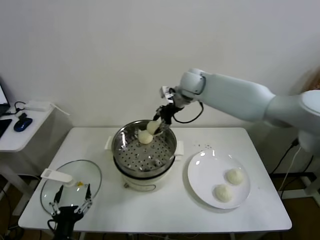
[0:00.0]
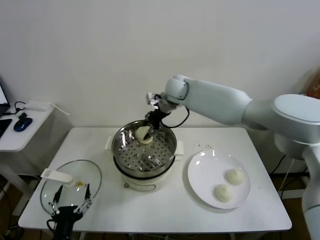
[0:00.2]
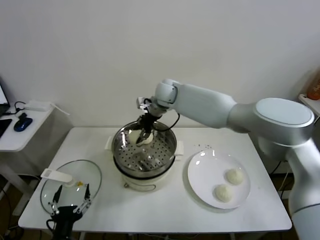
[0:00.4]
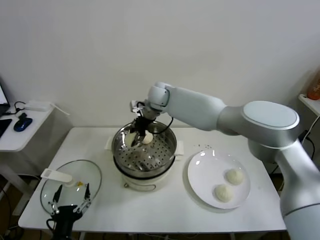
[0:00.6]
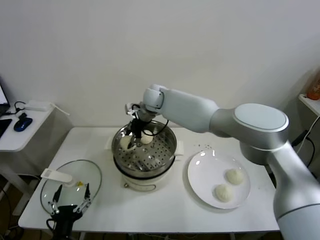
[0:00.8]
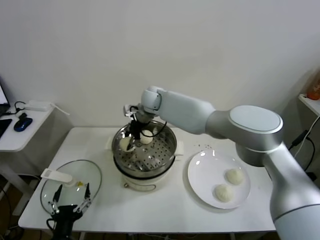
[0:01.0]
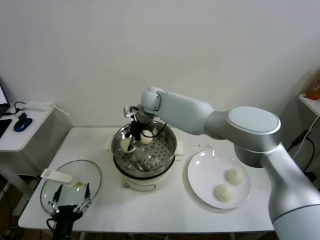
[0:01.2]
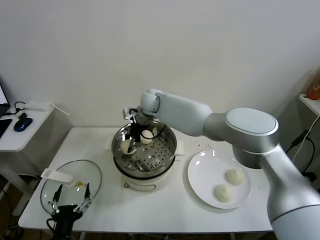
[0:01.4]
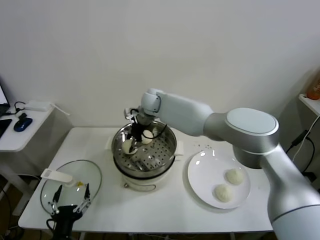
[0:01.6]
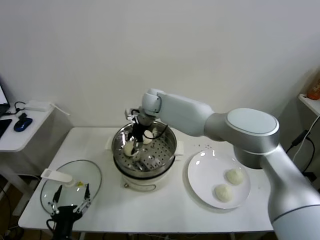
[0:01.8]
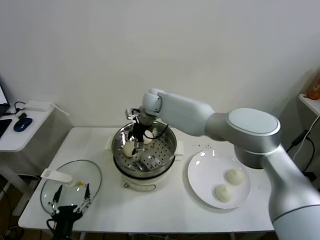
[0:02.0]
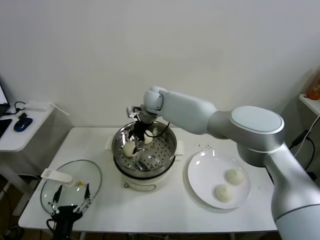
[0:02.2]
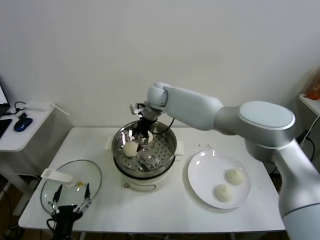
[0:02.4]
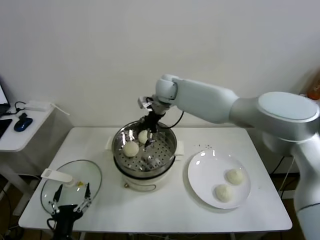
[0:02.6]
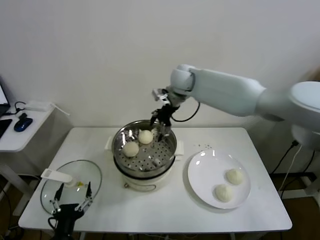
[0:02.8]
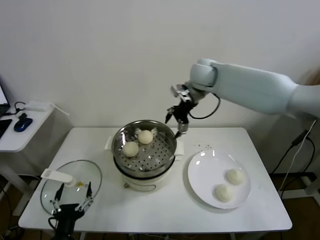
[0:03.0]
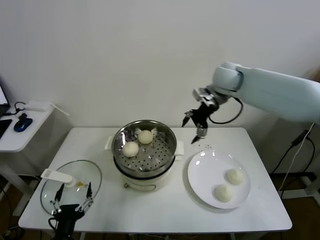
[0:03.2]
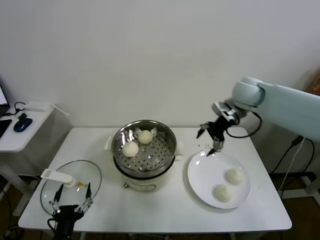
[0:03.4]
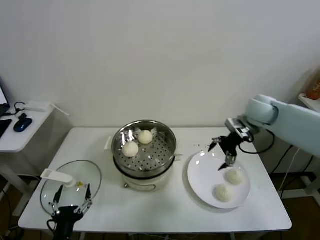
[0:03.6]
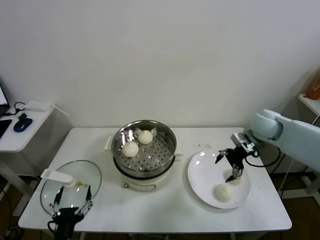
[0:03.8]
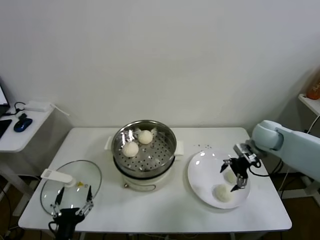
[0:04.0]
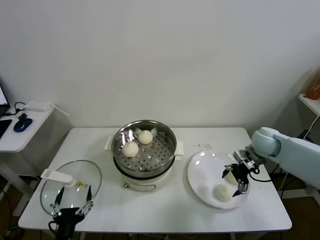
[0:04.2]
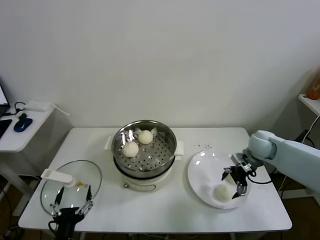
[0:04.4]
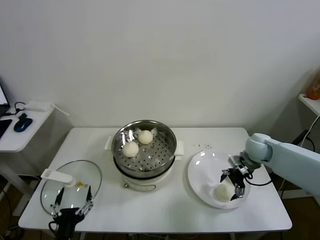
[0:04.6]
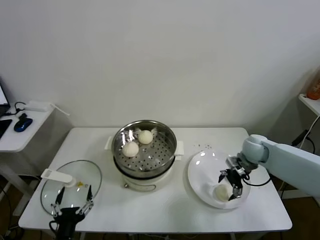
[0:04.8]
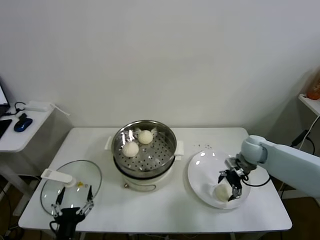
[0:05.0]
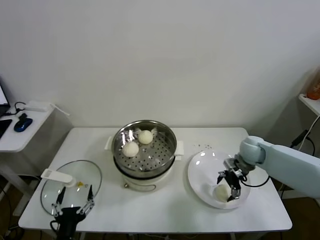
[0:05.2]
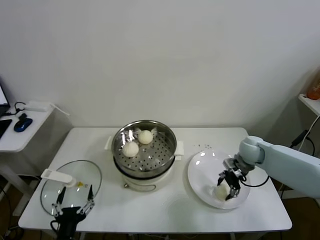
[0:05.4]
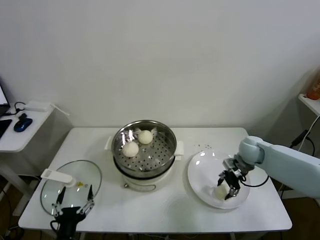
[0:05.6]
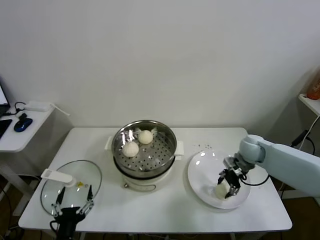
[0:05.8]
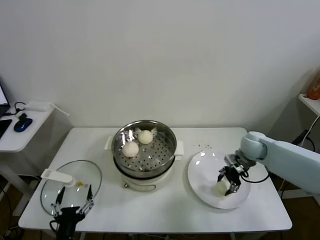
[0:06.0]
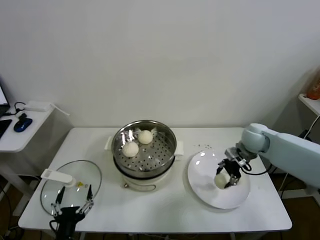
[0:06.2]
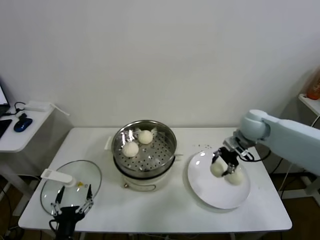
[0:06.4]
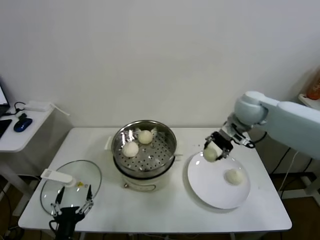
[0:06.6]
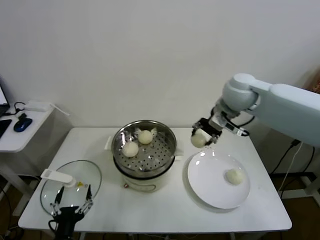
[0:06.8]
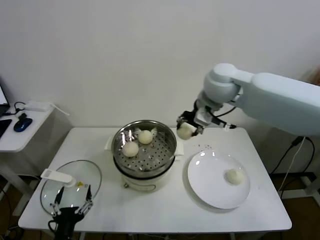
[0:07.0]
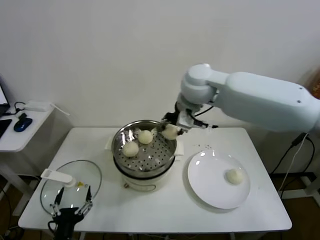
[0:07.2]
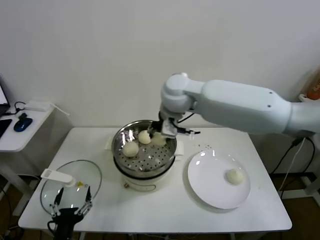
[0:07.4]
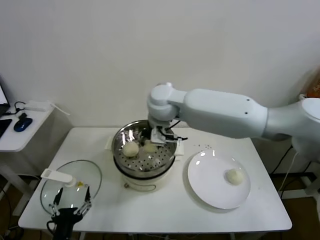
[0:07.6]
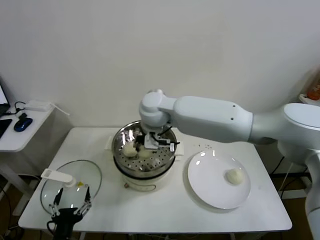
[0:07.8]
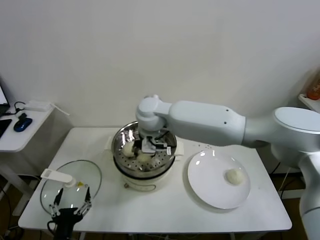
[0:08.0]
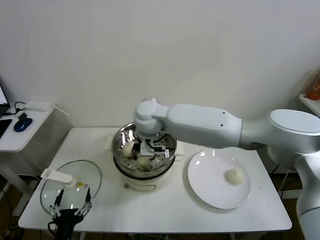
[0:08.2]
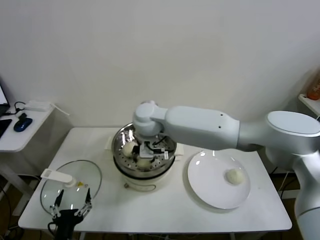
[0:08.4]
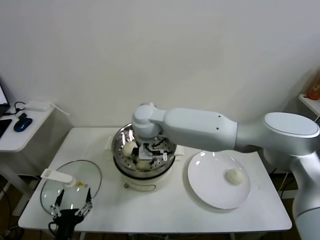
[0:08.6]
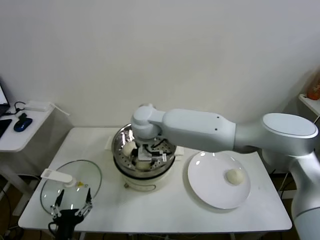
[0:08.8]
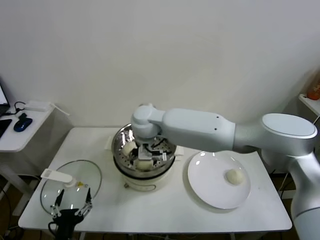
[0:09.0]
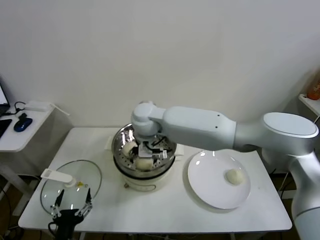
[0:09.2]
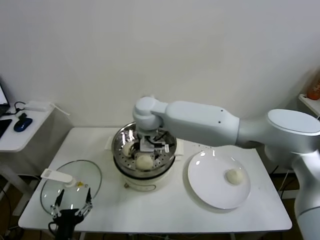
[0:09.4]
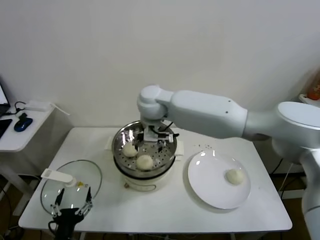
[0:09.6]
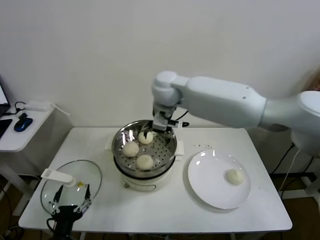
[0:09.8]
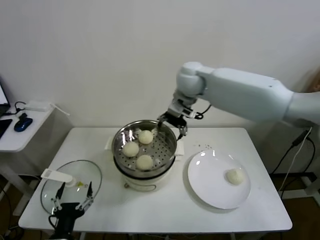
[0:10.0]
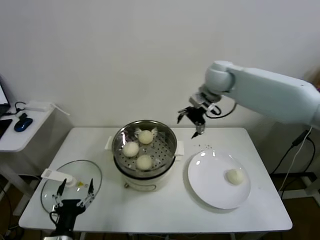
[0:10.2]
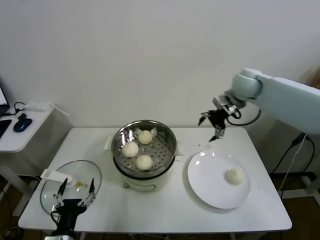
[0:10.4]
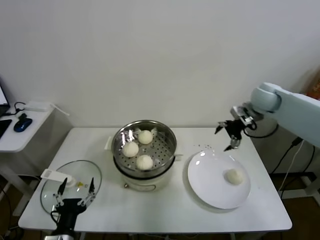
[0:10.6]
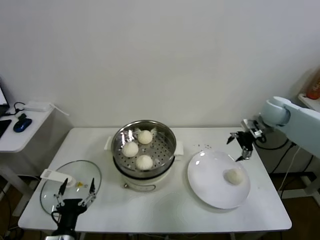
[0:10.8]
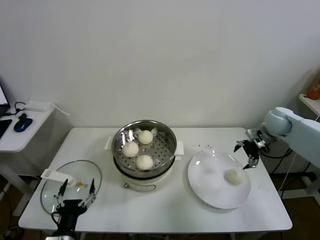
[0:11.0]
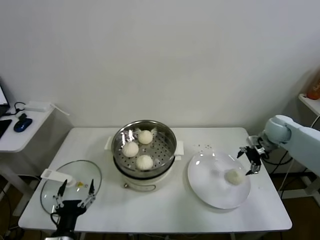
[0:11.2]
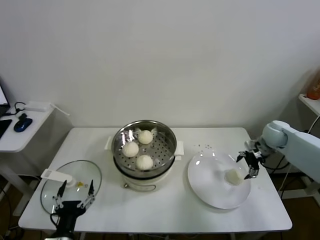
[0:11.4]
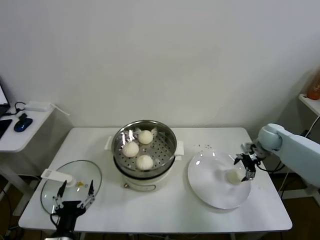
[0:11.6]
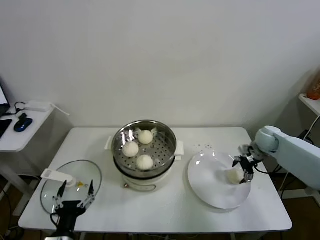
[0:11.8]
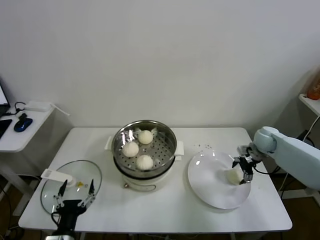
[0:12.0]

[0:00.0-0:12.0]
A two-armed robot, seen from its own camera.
Task of the whole recording: take steamed baozi put them in steamer.
Step, 0:00.0 to 0:02.2: Place the baozi on the steamer with right gripper.
Step, 0:02.4 to 0:05.8: Grasp the baozi in the plate with right gripper.
Step, 0:06.0 to 0:09.0: Place the baozi on the steamer with right gripper.
0:00.0 to 0:01.6: The right gripper moves to the left and downward, roughly 15 cm.
0:01.6 to 0:03.0: The right gripper heads to the right and upward, covering some 20 cm, and opens.
0:03.0 to 0:04.4: The right gripper moves downward, to the right and backward, approximately 30 cm.
0:04.4 to 0:06.0: The right gripper closes its fingers.
0:06.0 to 0:07.6: The right gripper heads to the left and upward, covering approximately 40 cm.
0:07.6 to 0:09.0: The right gripper heads downward and to the left, covering roughly 10 cm, and opens up.
0:09.0 to 0:10.4: The right gripper travels to the right by approximately 35 cm.
0:10.4 to 0:12.0: The right gripper heads downward and to the right, covering some 25 cm.

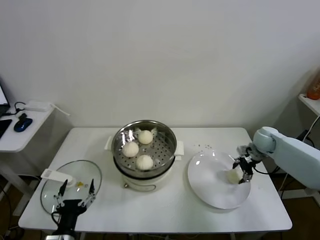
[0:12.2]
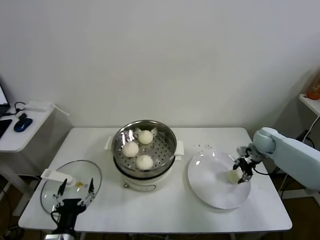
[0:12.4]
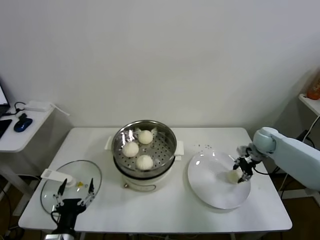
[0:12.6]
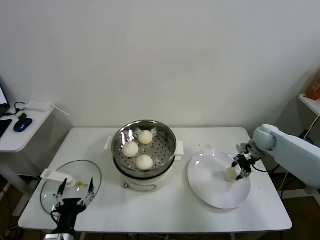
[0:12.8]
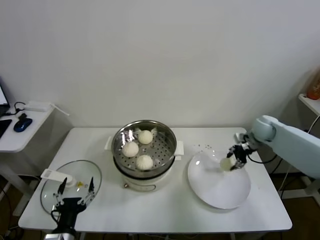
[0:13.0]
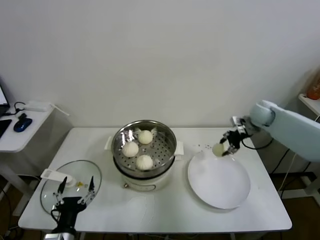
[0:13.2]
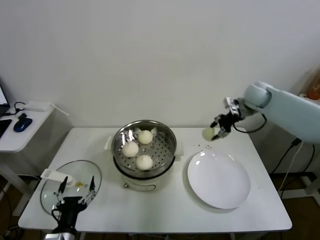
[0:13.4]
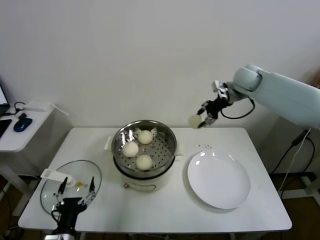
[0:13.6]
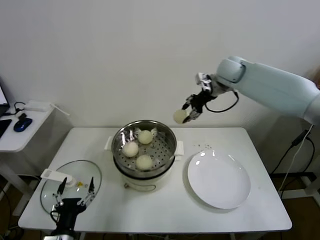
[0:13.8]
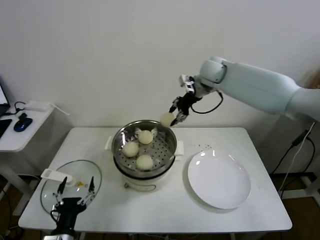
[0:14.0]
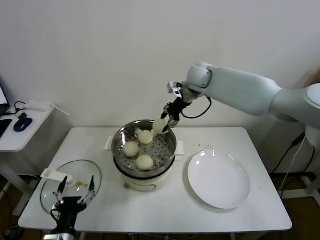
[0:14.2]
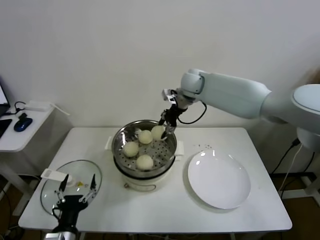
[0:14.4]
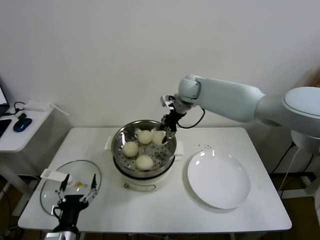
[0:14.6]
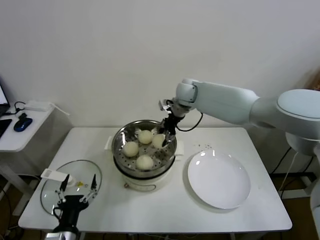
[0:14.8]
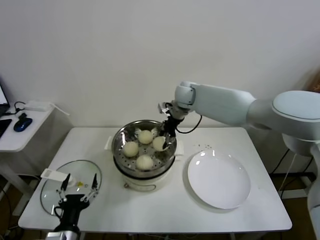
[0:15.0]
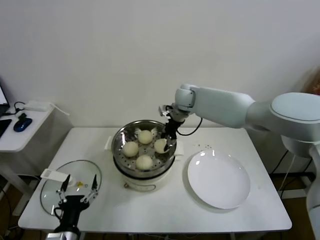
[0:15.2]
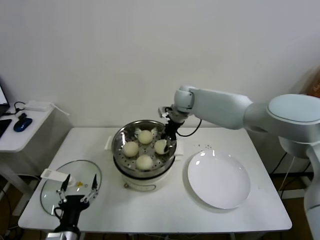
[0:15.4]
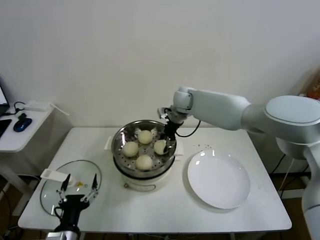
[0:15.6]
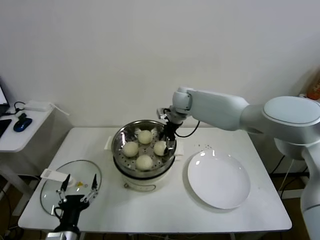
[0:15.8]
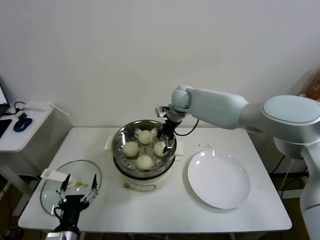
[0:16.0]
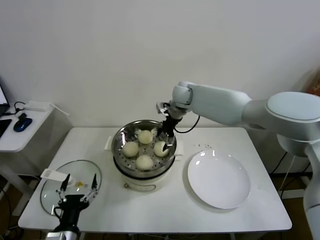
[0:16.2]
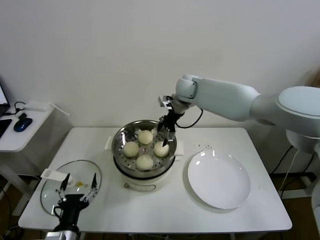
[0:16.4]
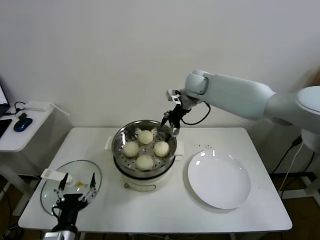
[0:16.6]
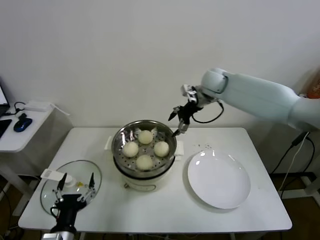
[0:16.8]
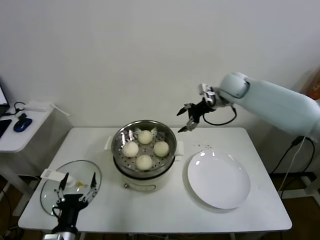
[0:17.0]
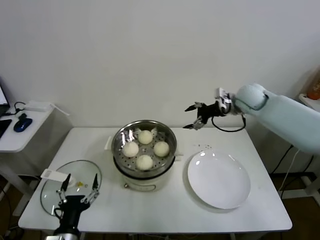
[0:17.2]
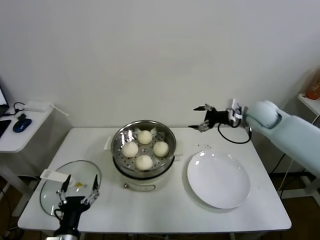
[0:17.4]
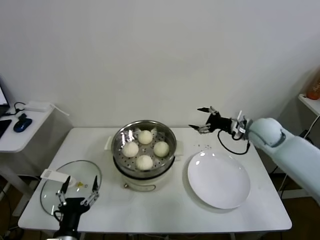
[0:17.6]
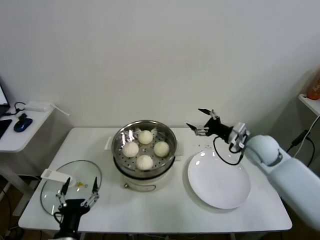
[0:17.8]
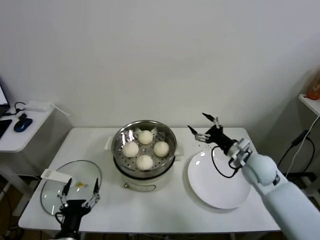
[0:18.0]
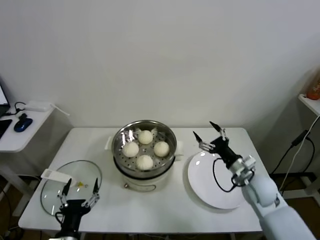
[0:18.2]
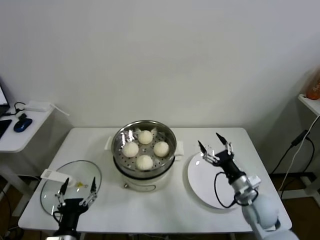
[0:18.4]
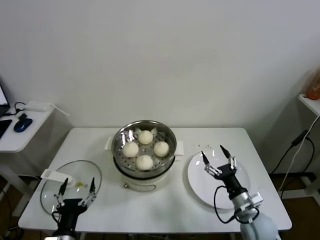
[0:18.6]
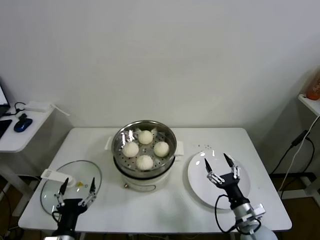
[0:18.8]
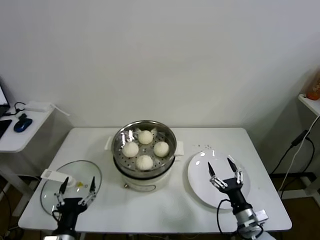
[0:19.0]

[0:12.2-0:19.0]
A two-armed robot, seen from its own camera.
Task of the whole recording: take steamed baozi put them in steamer.
Step, 0:12.8 to 0:16.2: Place the baozi on the steamer with right gripper.
0:12.2 to 0:13.6: The right gripper goes roughly 25 cm upward and to the left, and closes.
0:13.6 to 0:15.0: The right gripper heads to the left, covering about 20 cm.
0:15.0 to 0:16.2: The right gripper opens up.
0:16.2 to 0:17.6: The right gripper shifts roughly 30 cm to the right and backward.
0:17.6 to 0:19.0: The right gripper heads backward and downward, covering about 35 cm.

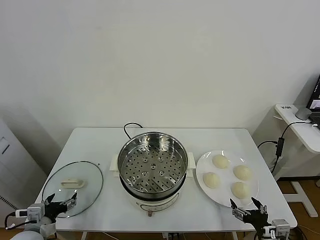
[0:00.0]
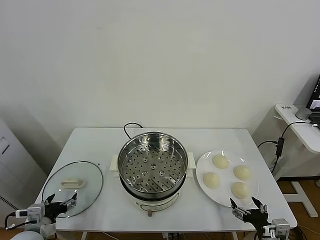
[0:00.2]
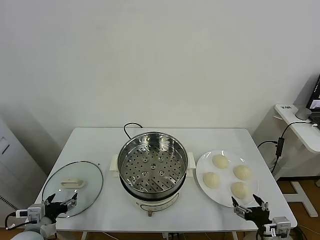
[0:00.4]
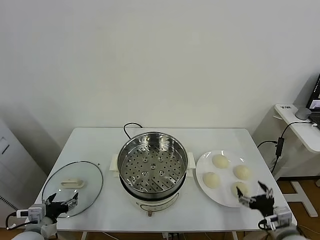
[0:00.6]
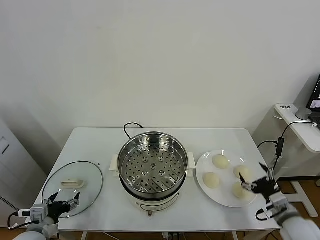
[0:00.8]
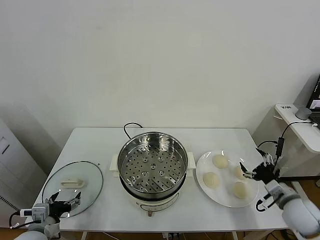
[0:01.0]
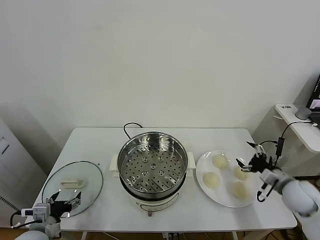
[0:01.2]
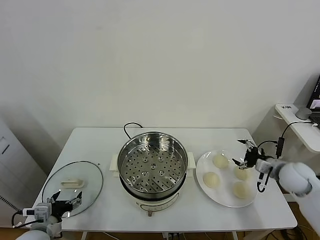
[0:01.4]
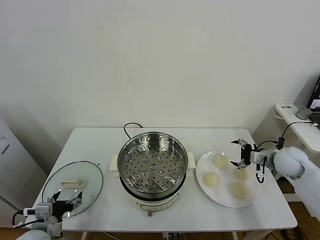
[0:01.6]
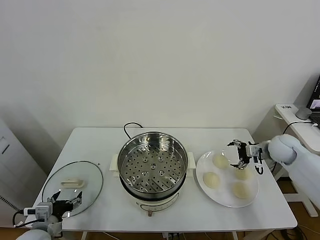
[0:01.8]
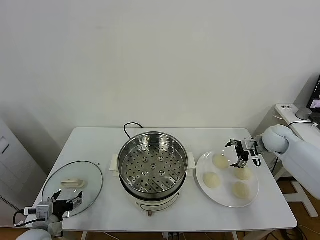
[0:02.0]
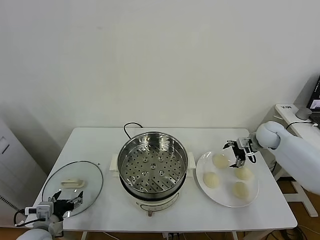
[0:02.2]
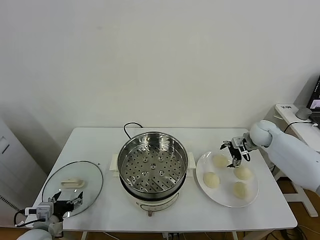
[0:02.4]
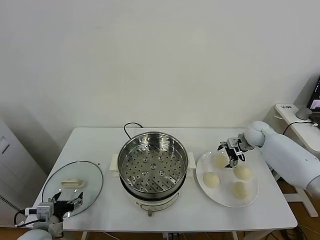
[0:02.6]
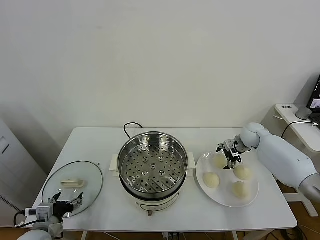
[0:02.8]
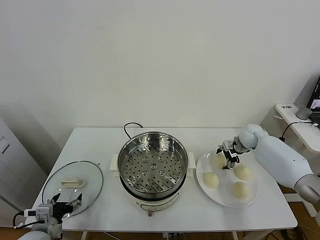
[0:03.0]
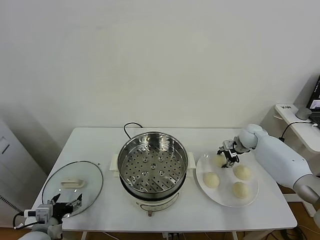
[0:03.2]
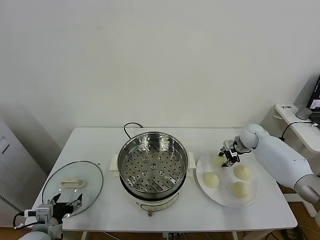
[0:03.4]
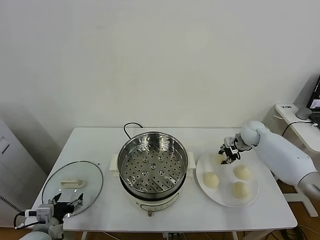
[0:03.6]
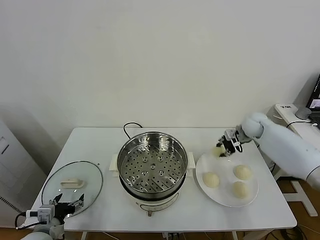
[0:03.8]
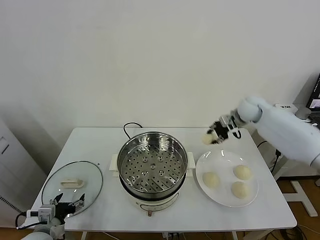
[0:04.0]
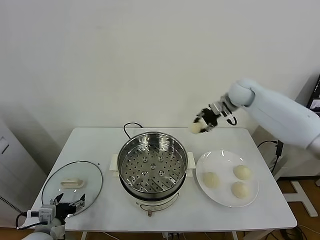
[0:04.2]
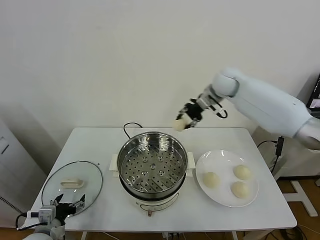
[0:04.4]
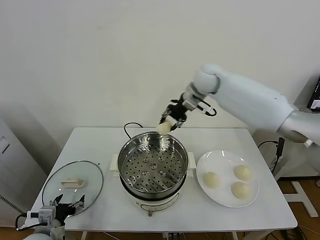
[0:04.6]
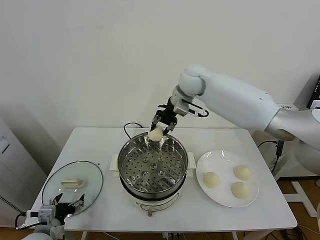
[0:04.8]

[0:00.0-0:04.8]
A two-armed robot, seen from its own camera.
Task of the whole recording: take steamed baozi put them in steamer.
Step, 0:00.0 to 0:03.2: Grasp the baozi in the plate with right gripper.
0:01.6 to 0:03.2: The right gripper goes some 15 cm forward and to the left, and closes.
0:03.2 to 0:04.8: The right gripper is displaced to the left and upward by roughly 40 cm.
